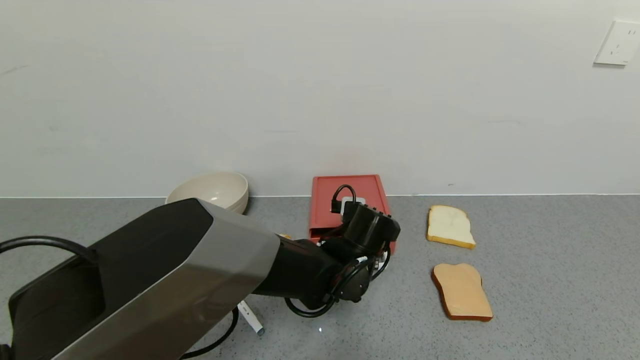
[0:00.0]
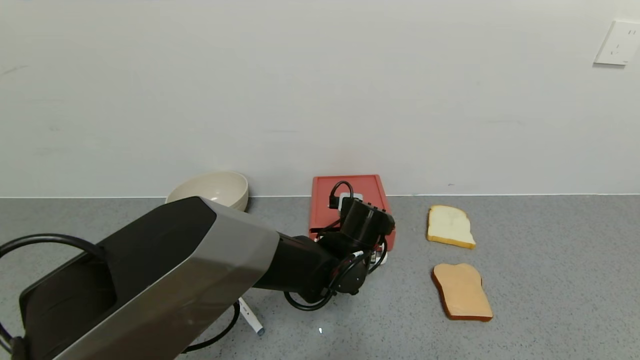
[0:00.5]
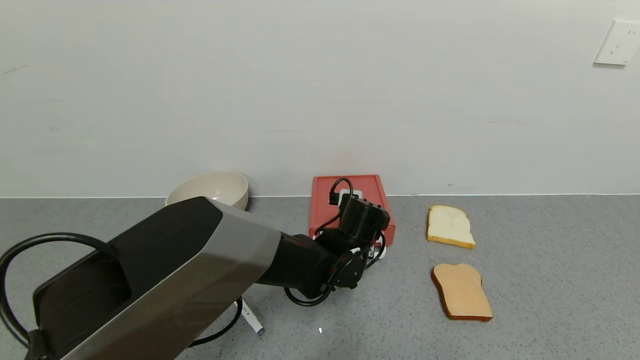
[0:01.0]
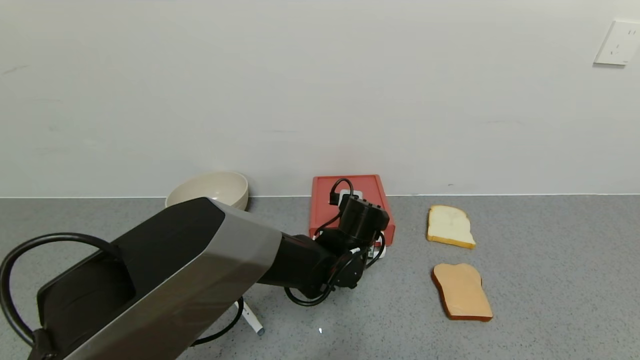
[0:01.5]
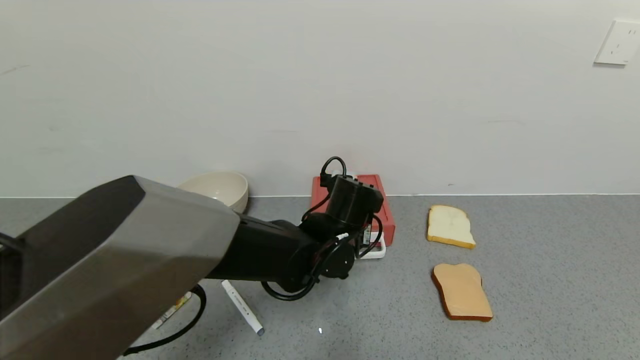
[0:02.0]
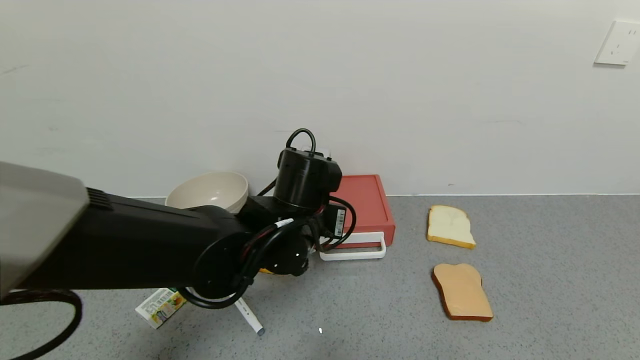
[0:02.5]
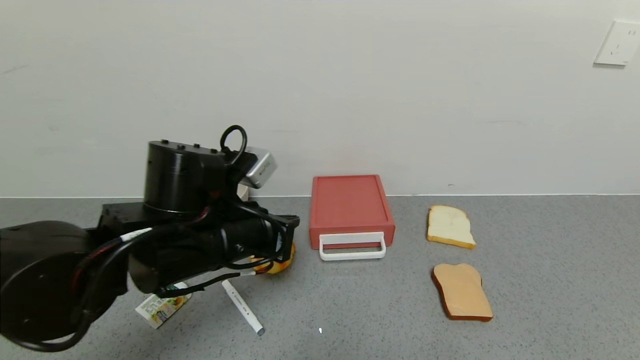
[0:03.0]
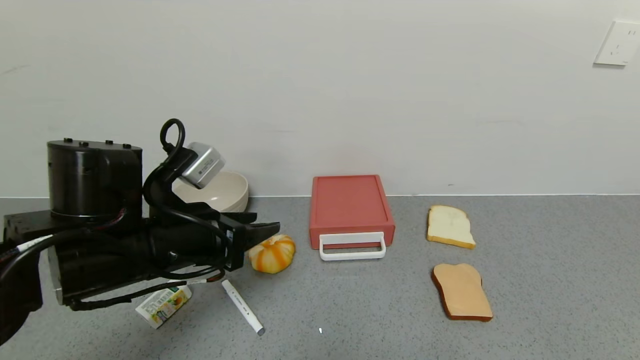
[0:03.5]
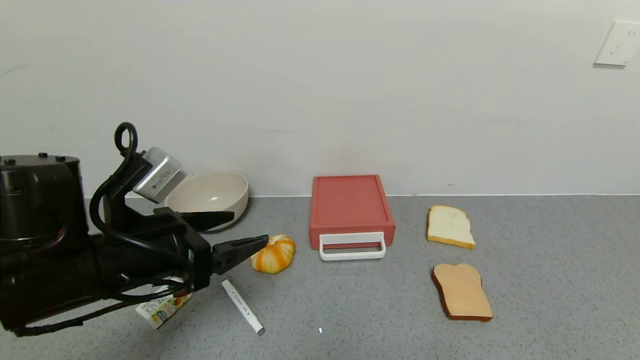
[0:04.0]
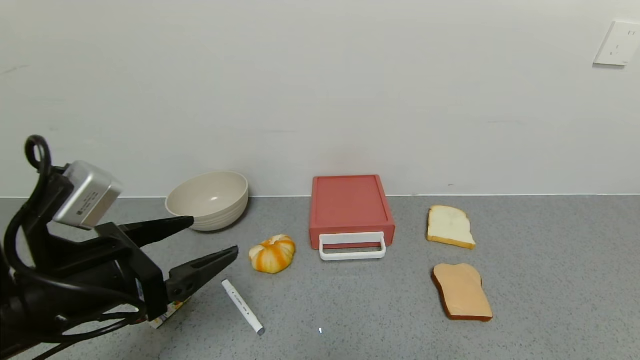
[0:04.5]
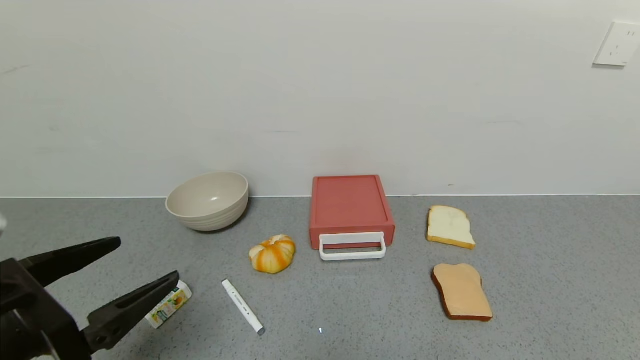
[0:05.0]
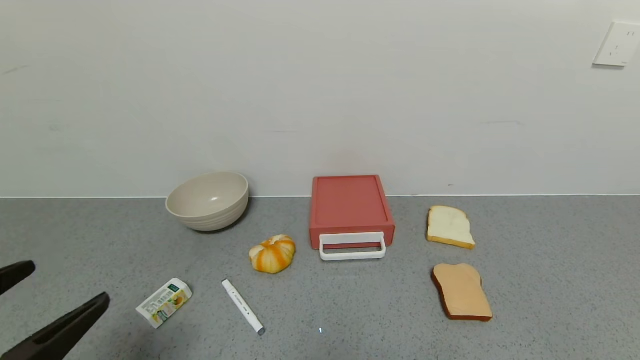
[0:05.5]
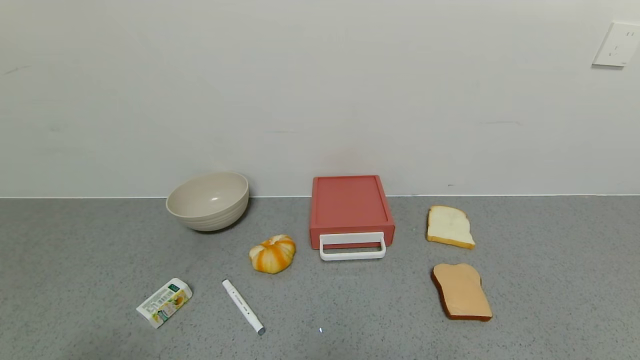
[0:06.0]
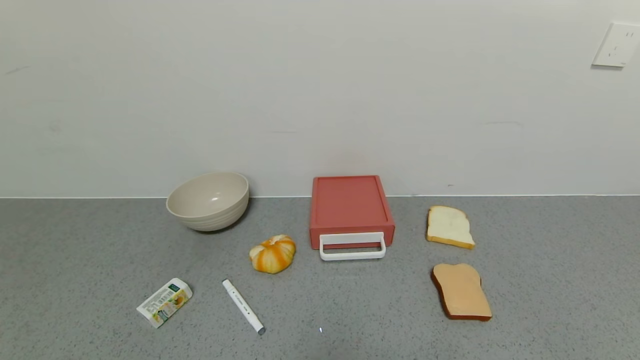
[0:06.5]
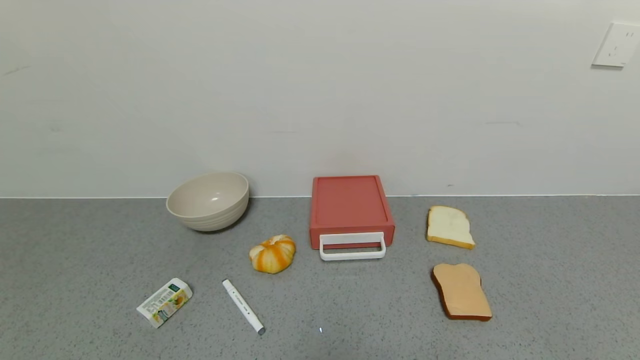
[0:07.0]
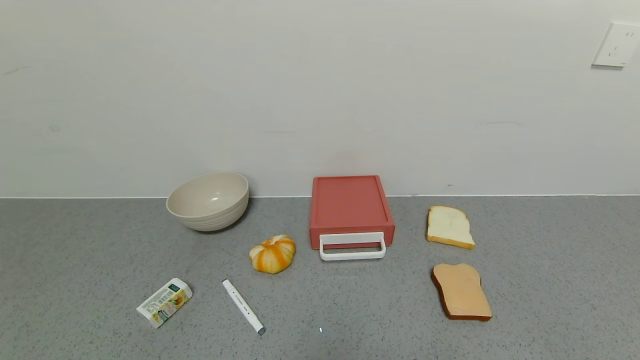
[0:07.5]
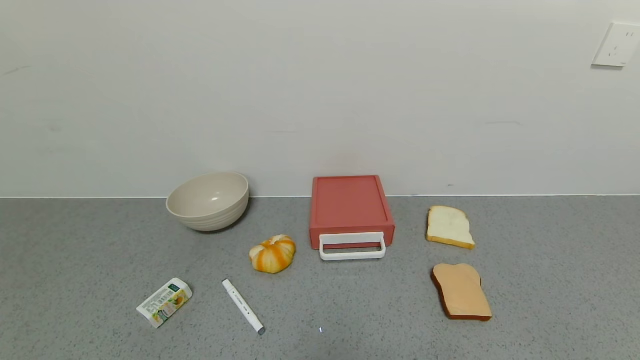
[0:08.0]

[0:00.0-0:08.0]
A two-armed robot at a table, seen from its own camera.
Task of the whole recording: use the gripper to open the drawer and close the red drawer.
Step, 0:00.0 to 0:02.0: Close the red drawer with left gripper.
0:00.0 to 0:02.0: The left gripper shifts roughly 5 cm upward.
0:02.0 to 0:04.0: The left gripper goes about 25 cm to the left and backward, and opens its fingers.
0:04.0 to 0:06.0: The left gripper travels backward by approximately 20 cm.
